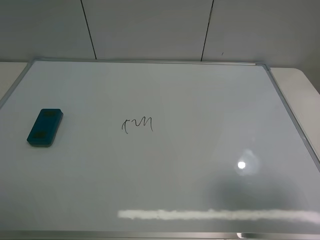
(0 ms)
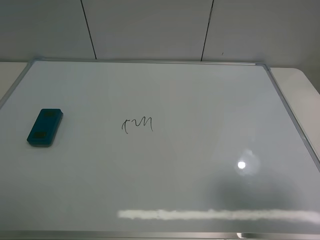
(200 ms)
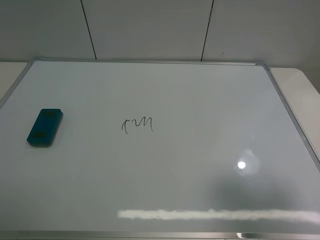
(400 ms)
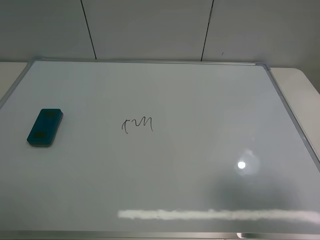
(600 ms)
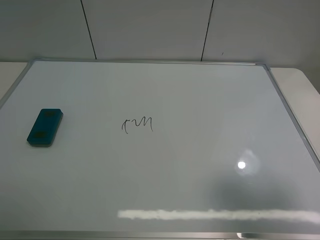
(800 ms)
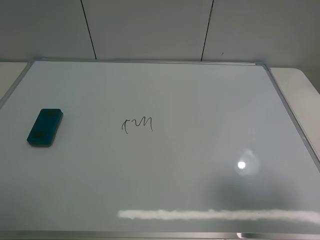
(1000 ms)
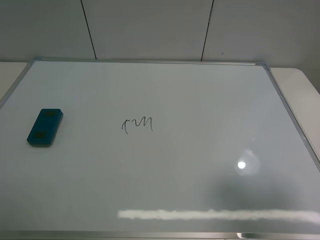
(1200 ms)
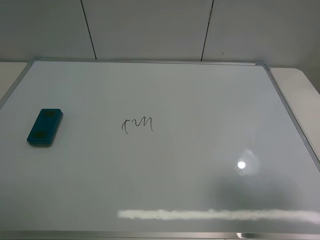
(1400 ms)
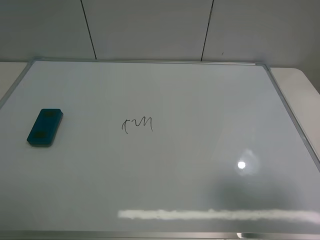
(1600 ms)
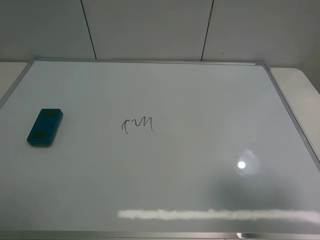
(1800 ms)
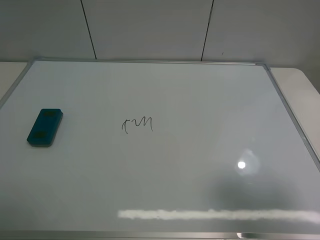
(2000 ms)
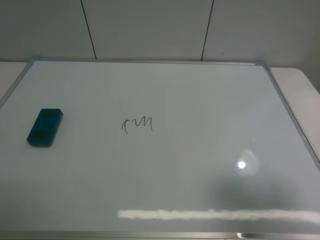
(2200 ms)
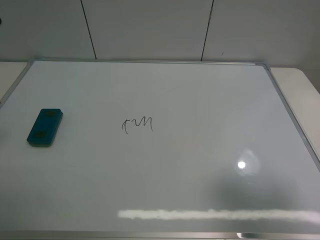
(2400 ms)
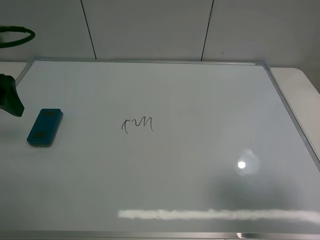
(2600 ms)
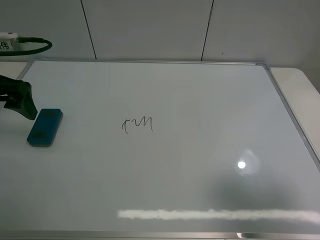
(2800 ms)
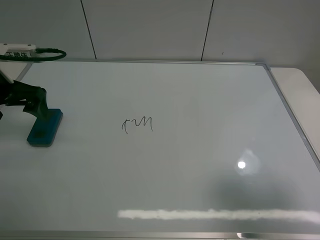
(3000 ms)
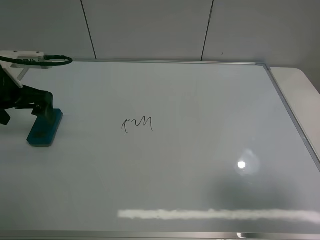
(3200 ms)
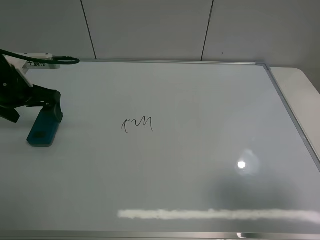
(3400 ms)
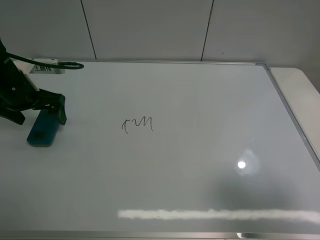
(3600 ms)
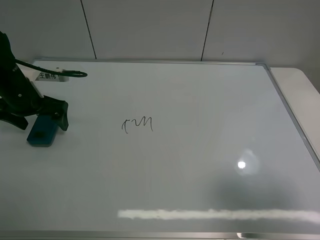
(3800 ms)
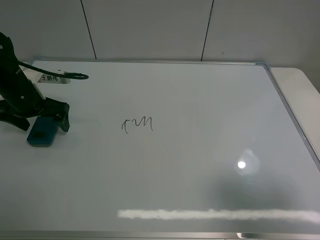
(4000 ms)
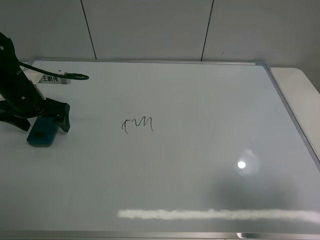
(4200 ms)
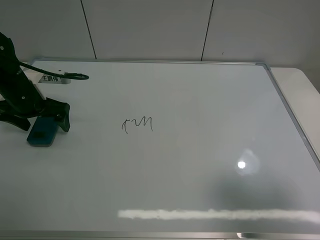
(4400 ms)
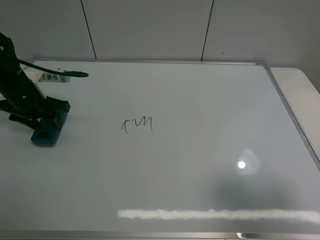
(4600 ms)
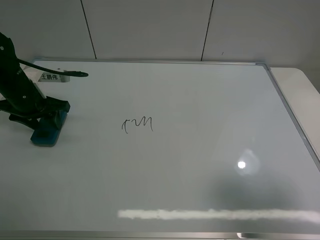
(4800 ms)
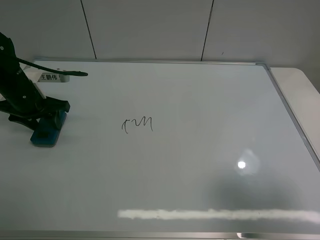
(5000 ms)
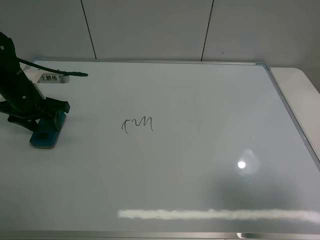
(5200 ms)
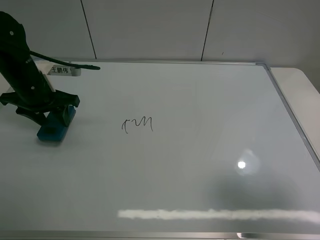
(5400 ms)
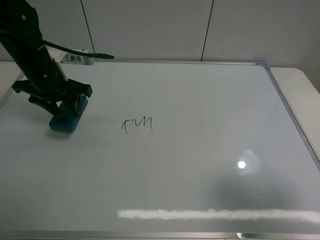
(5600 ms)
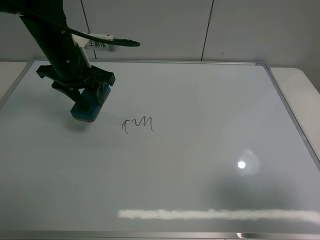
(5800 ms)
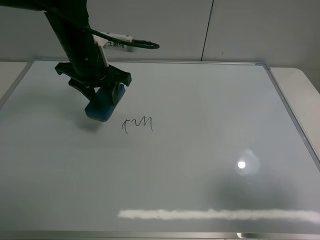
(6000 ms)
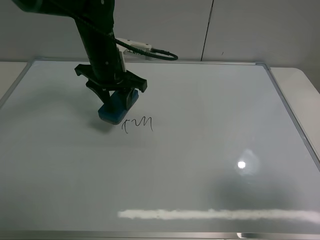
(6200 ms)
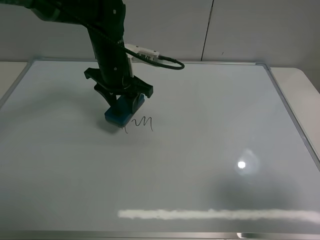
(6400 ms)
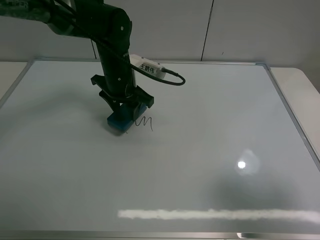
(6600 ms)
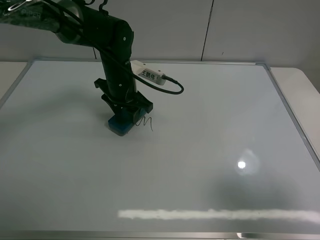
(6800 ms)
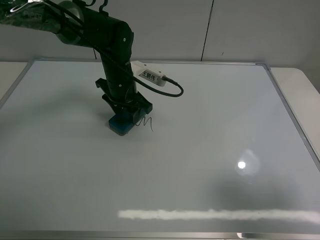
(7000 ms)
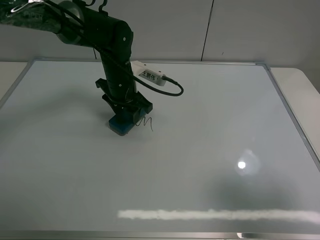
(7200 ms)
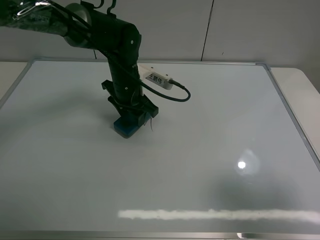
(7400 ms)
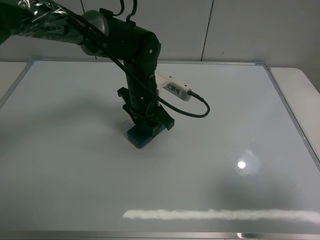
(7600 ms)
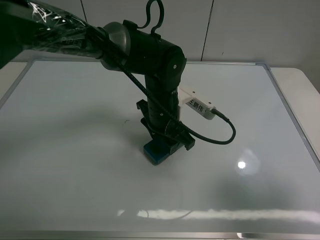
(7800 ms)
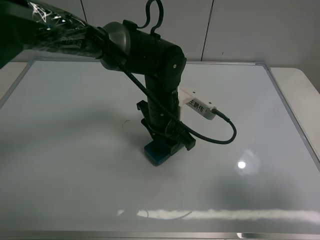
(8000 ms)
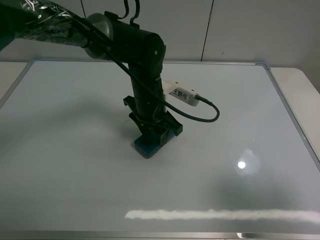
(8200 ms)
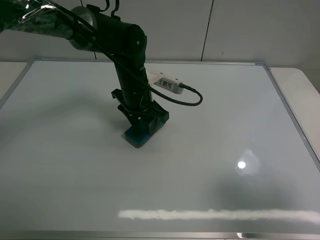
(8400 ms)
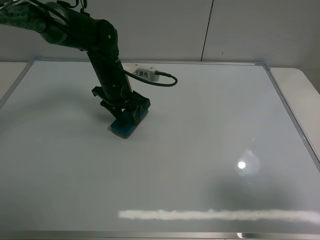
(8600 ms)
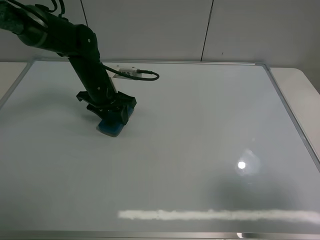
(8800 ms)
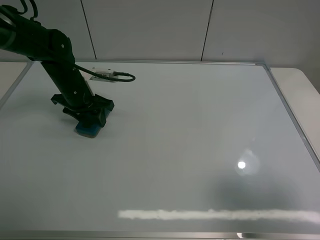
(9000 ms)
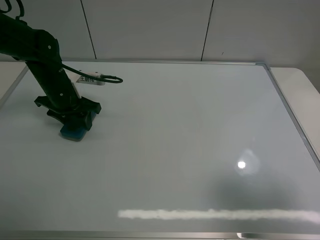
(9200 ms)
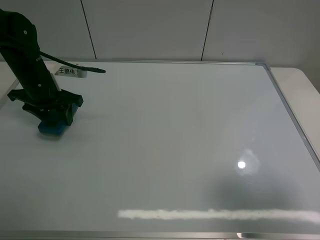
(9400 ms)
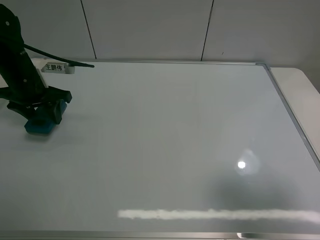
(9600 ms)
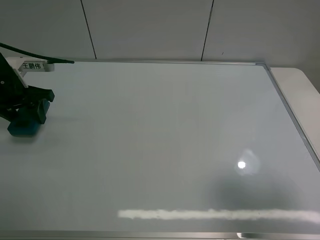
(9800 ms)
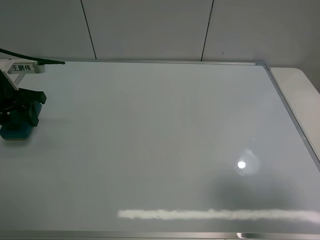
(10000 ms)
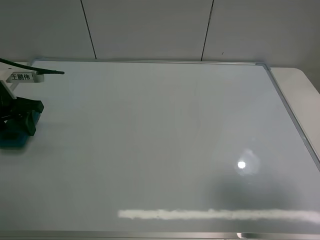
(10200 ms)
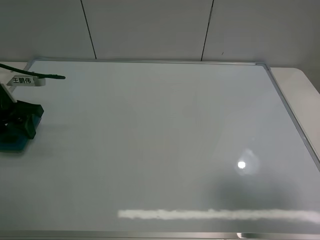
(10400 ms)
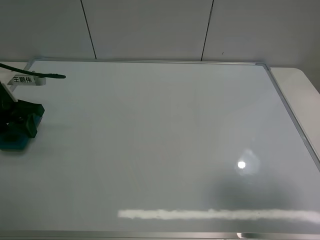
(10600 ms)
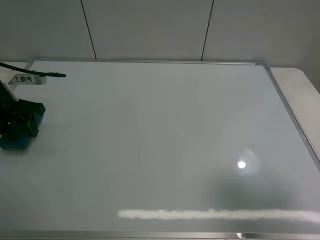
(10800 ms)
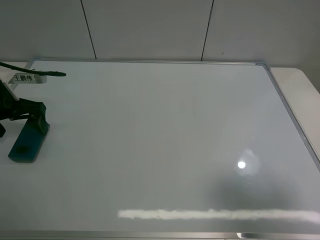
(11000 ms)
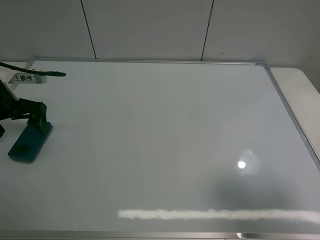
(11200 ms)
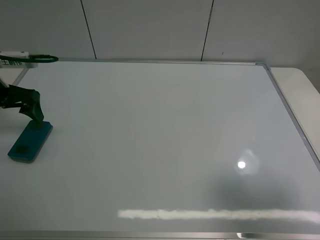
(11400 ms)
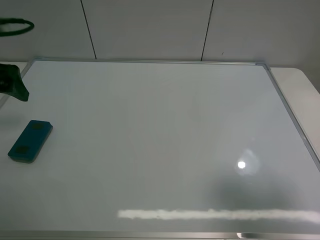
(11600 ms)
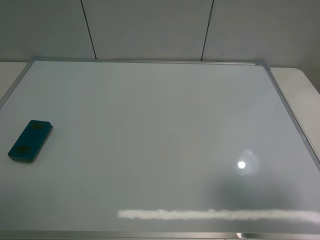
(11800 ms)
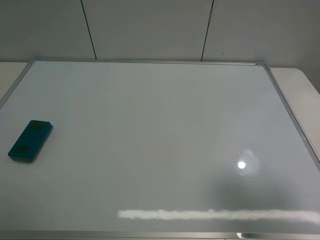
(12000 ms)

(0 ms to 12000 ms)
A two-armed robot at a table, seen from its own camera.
Task of the whole recording: use the left claw to pick up the whiteboard eraser, wipe the notes on the whiteboard clean, and then put them back in place.
Step, 0 ms - 4800 ms: Grasp the eraser with the left gripper.
Step, 5000 ms - 9000 ms: Grasp the eraser and wipe the blackboard with the left gripper.
Step, 9200 ms - 11000 ms: Place the eraser with the left gripper.
1600 ms - 3000 ms: The left gripper travels forward by approximately 25 cm.
3000 ms - 4400 ms: The left gripper travels downward by approximately 10 cm.
4400 ms - 6000 ms: The left gripper is displaced to the right and upward by some 15 cm, and closes its fingers.
6000 ms - 7600 ms: The left gripper heads to the right and downward, covering some 15 cm.
7600 ms - 9000 ms: The left gripper travels to the left by some 20 cm.
9000 ms - 10400 ms: The left gripper moves to the left and backward, approximately 15 cm.
10400 ms - 12000 ms: The left gripper is displaced upward and backward by approximately 30 cm, and opens up.
